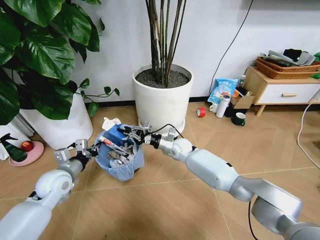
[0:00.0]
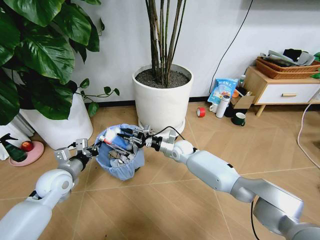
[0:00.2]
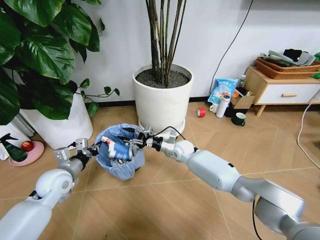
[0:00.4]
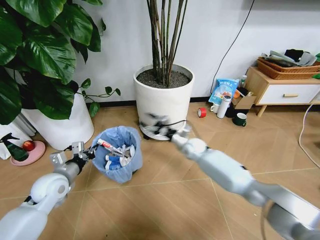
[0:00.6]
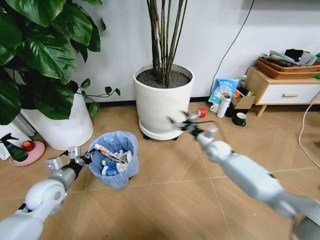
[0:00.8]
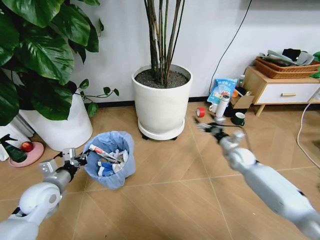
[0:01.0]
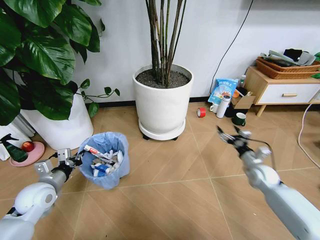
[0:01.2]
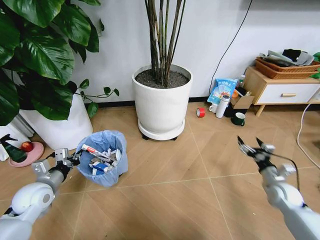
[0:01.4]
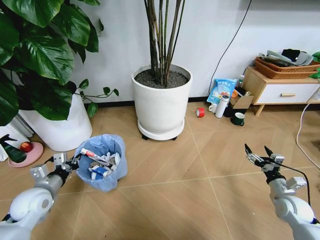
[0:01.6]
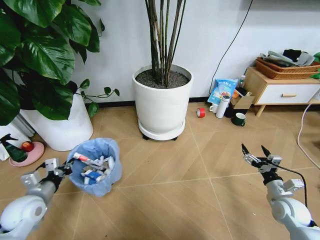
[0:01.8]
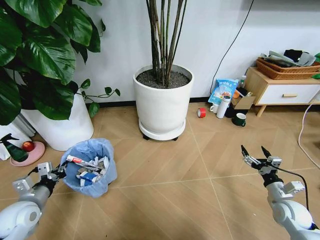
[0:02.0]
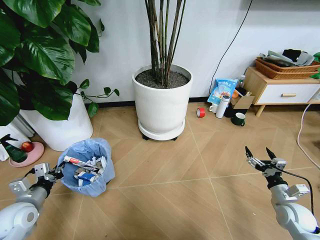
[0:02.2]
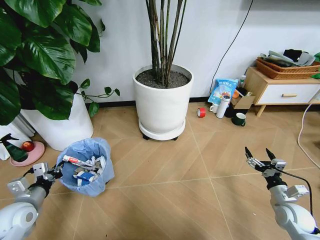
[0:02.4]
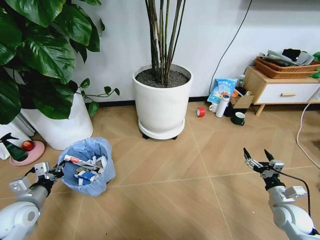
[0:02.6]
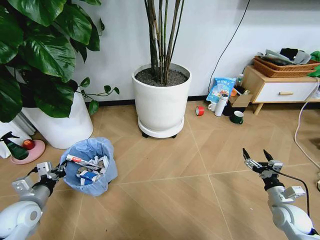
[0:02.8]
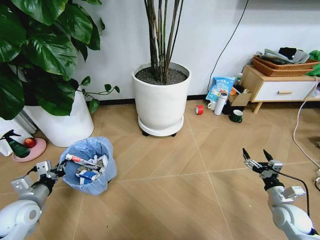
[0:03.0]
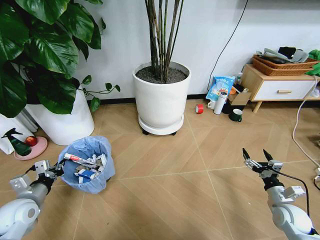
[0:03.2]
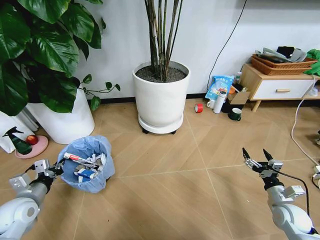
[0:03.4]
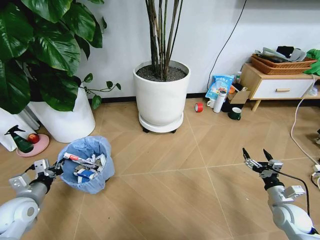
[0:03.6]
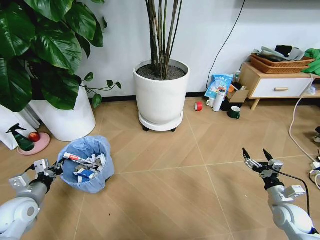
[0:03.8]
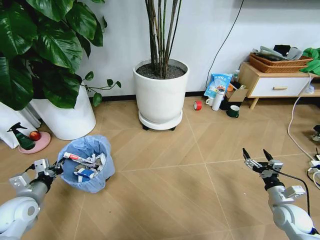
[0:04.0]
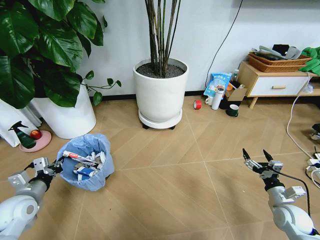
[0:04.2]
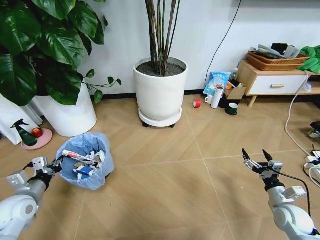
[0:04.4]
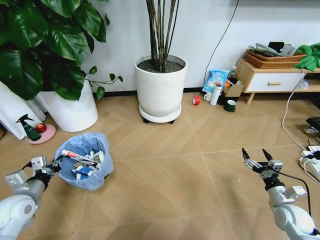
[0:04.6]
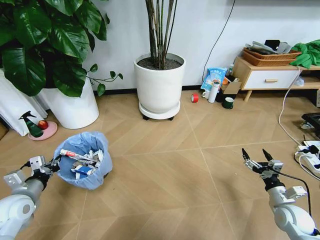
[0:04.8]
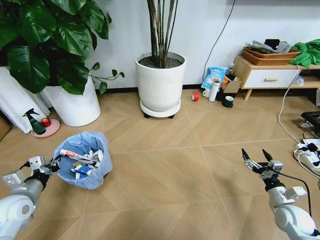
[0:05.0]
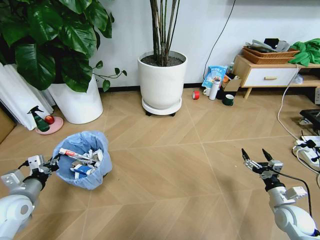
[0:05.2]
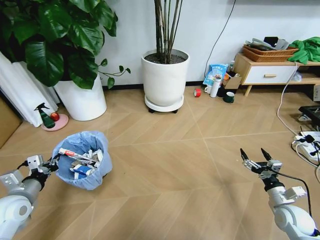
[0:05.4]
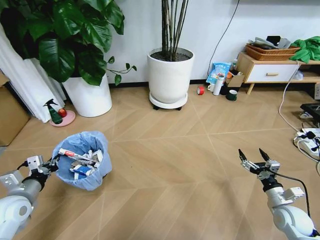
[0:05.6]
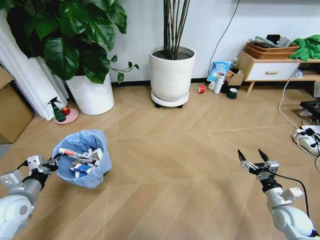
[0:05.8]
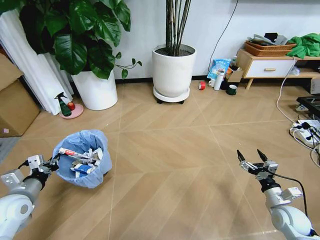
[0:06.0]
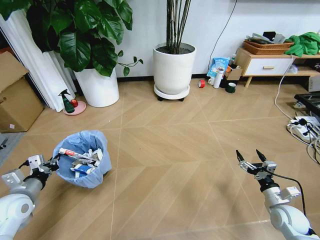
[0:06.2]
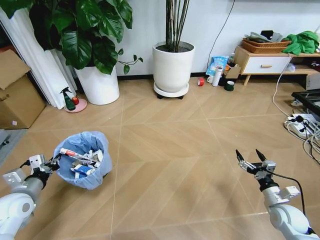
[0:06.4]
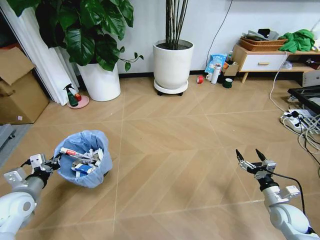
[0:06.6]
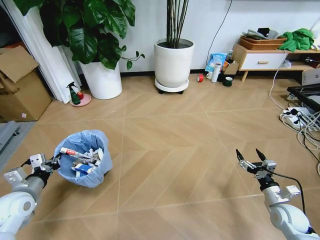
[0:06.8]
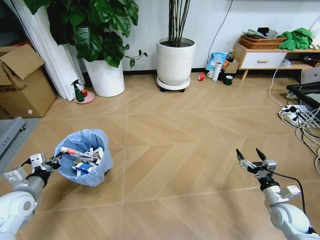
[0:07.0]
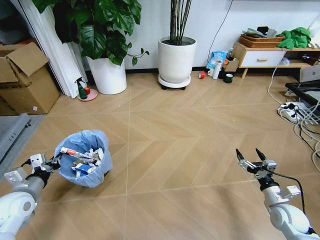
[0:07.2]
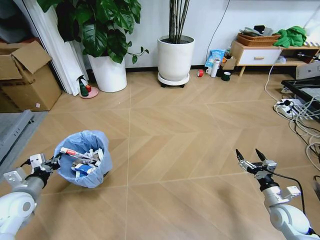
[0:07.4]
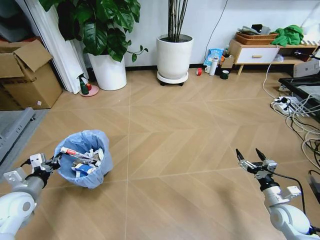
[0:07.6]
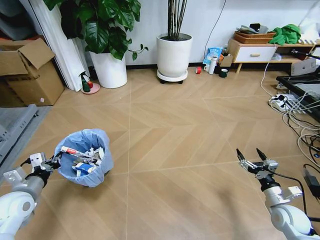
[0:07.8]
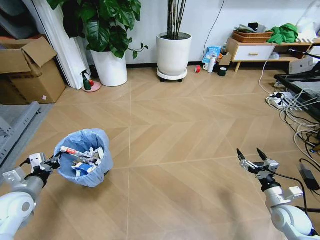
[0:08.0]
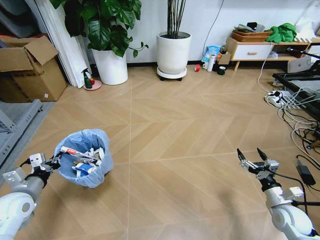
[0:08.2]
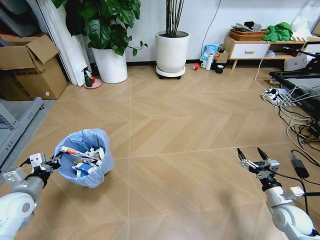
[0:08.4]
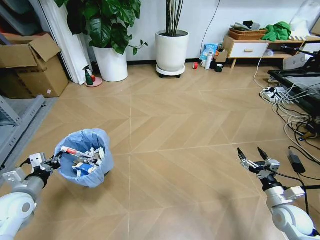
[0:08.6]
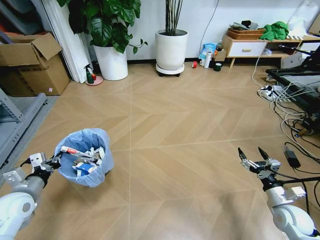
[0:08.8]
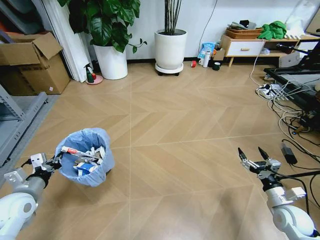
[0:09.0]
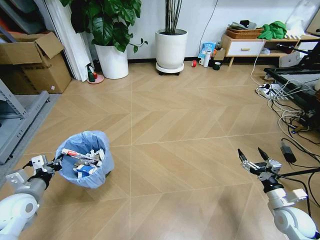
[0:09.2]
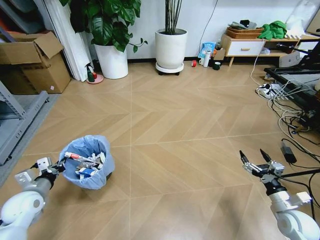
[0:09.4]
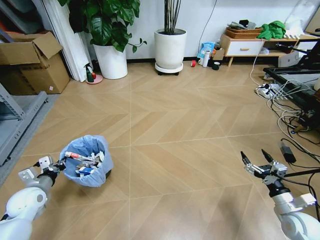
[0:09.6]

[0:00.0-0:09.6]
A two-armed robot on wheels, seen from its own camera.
Task of the whole recording: Pick up the trash bin and place the garbage on the floor into it.
0:00.0 to 0:01.6: The left gripper moves to the left, approximately 5 cm. The right gripper heads to the right and backward, covering some 50 cm, and opens.
0:08.0 to 0:09.6: The left gripper is displaced downward by some 5 cm.

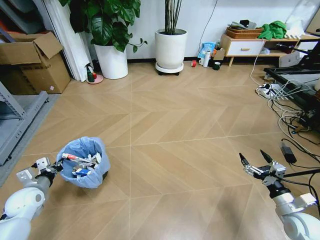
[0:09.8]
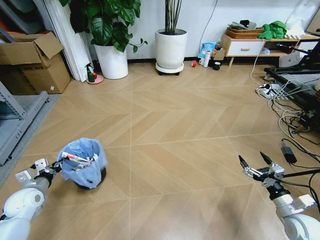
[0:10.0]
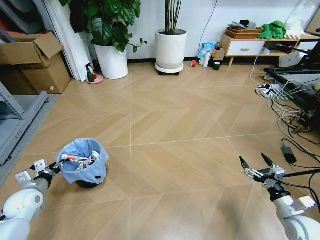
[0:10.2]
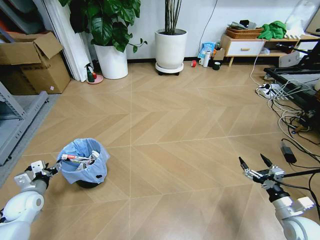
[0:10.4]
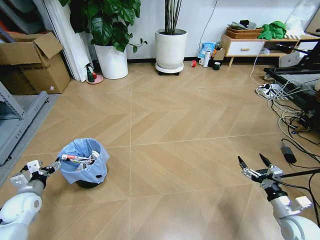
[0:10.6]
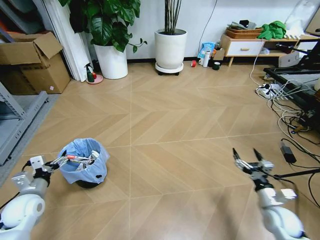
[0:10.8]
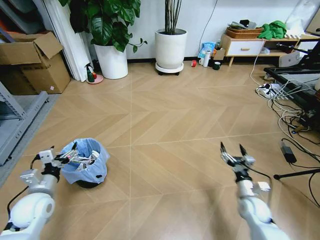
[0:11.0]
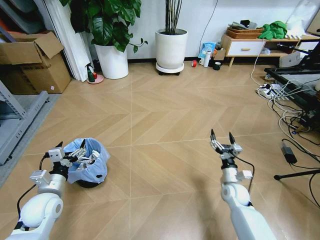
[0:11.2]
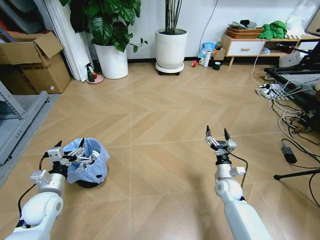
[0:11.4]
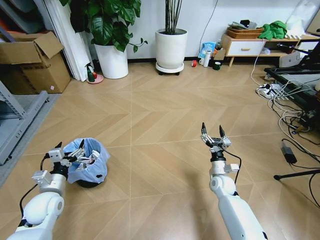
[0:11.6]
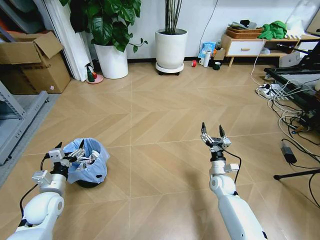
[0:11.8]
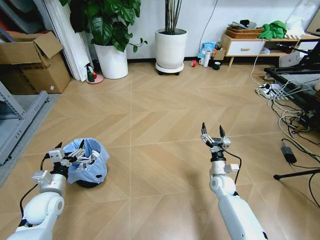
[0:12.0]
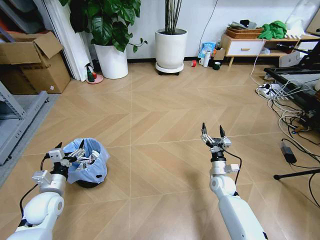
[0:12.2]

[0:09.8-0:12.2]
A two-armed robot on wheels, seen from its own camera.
Task of the whole recording: Pick up the trash bin and place the garbage on the floor into it.
0:09.8 to 0:11.0: The right gripper moves to the left, forward and downward, about 15 cm, while the left gripper heads to the right, covering roughly 10 cm, and opens its fingers.
0:11.0 to 0:12.2: The right gripper moves forward and to the left, roughly 10 cm.
